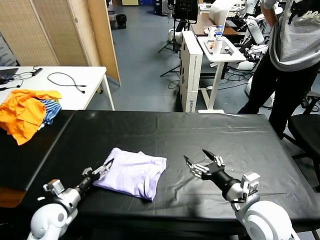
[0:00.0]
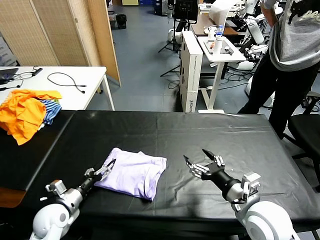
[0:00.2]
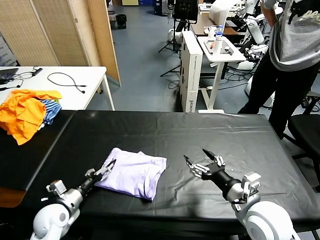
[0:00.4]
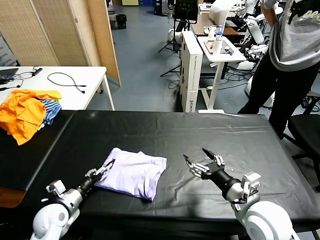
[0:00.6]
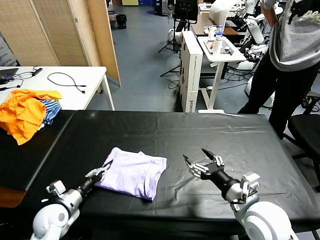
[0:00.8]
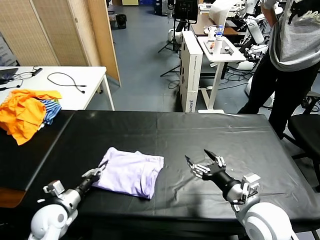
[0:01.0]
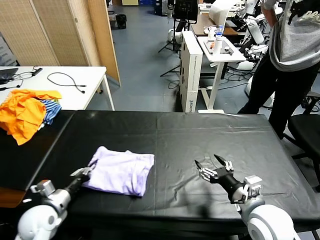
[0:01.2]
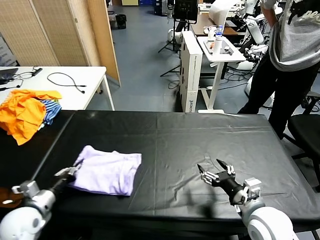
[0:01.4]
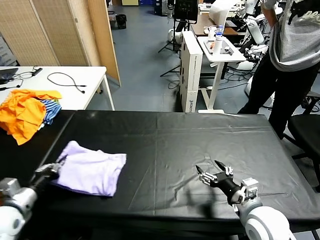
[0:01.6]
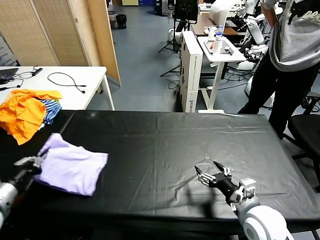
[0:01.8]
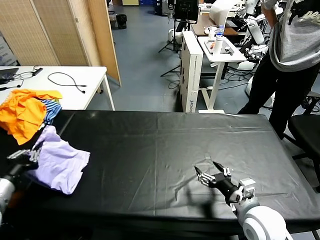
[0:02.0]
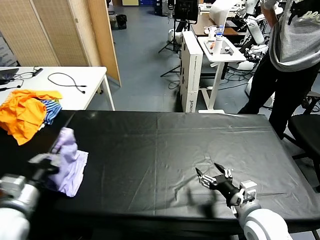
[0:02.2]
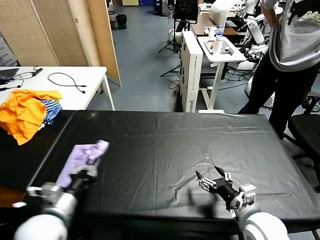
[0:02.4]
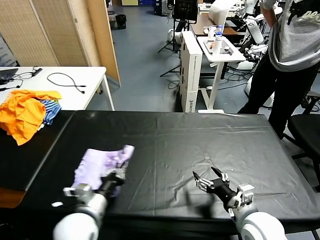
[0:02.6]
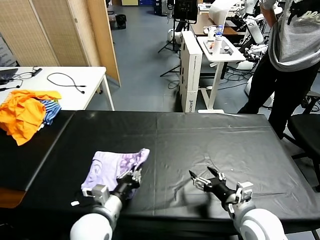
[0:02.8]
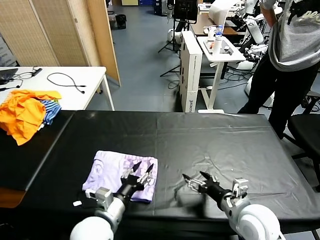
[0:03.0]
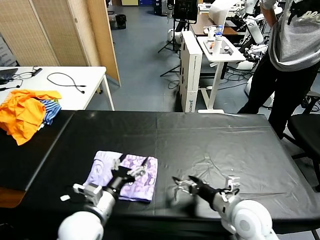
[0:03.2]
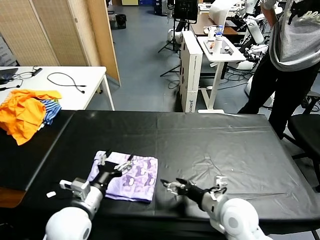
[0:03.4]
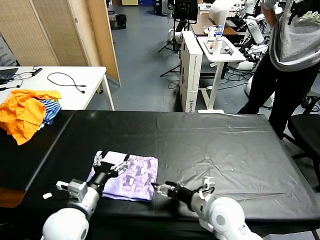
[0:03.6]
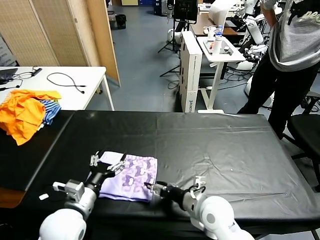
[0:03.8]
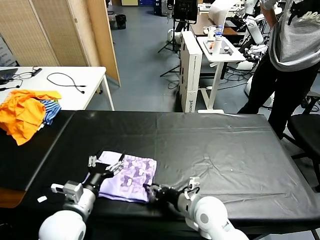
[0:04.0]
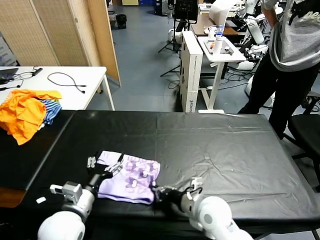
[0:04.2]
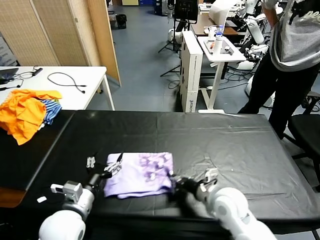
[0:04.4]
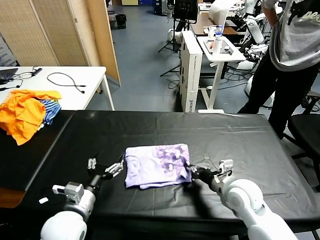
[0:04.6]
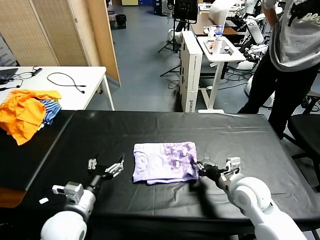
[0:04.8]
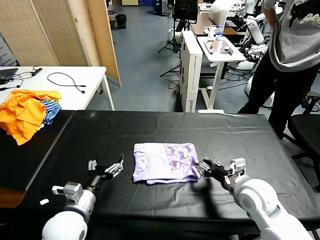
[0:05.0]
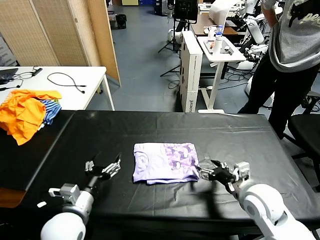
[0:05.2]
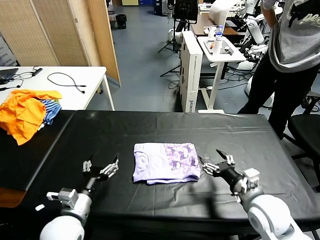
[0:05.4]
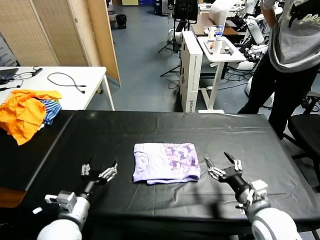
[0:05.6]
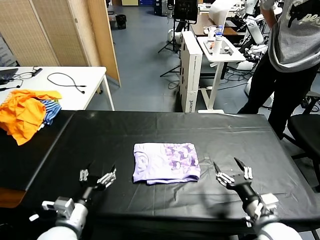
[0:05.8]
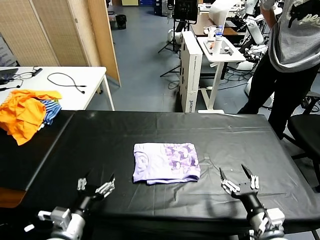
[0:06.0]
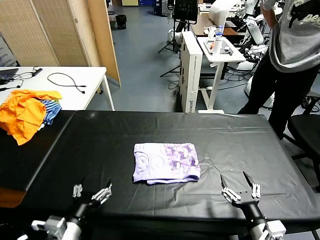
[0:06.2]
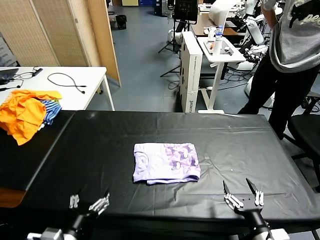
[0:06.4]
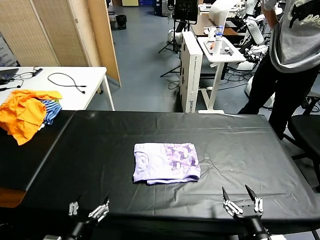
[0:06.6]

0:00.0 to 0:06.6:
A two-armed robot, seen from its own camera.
Task of the whole recording: fold and organize the clothes.
Step, 0:00.0 to 0:03.2: Flip the folded clothes over with left gripper.
Step, 0:03.4 to 0:05.2: Drag the clothes to the center of the table.
0:00.0 to 0:01.6: The left gripper shifts approximately 10 cm upward and to the left, and closes.
0:01.6 to 0:03.2: The left gripper shifts some 25 cm to the right, and opens up.
0:03.2 to 0:05.0: The right gripper shifts approximately 5 cm forward, reaches about 10 cm to the left, then returns, and closes up, while the left gripper is displaced to the left by about 5 cm.
0:05.0 to 0:06.6: The right gripper goes roughly 20 cm backward, and opens up. The left gripper is displaced backward by approximately 10 cm.
